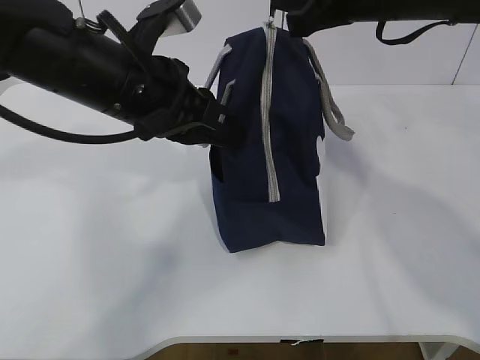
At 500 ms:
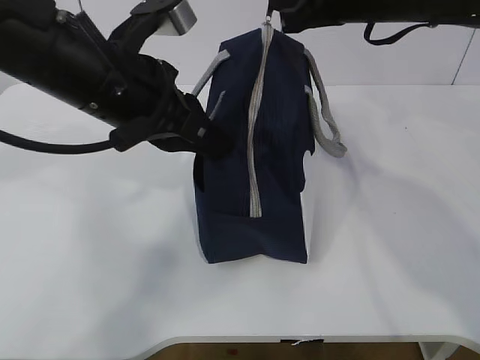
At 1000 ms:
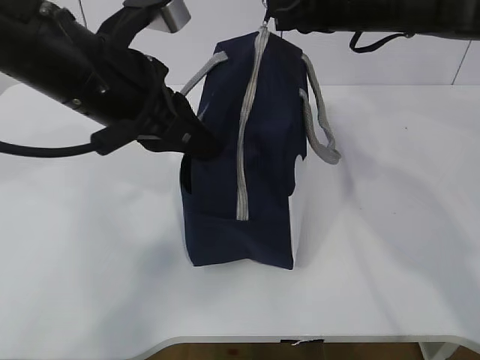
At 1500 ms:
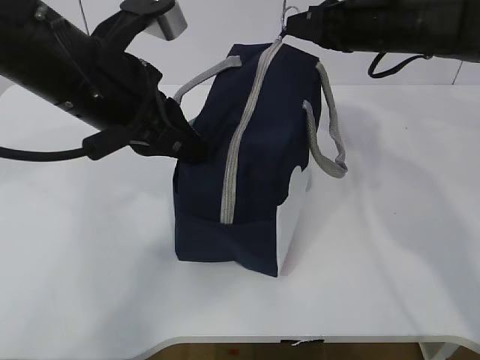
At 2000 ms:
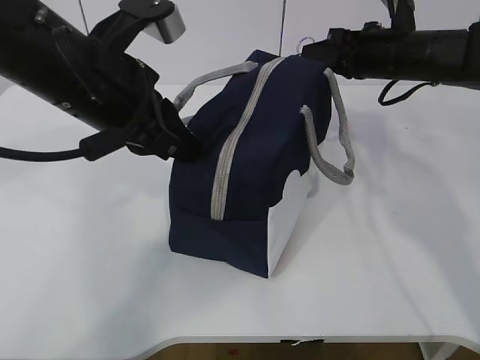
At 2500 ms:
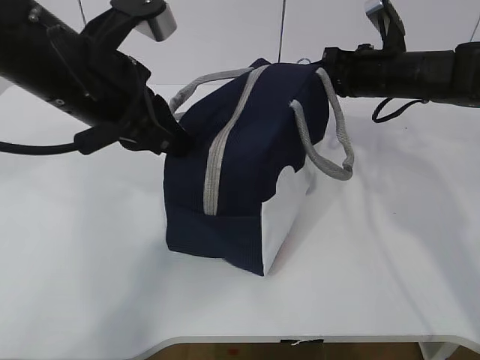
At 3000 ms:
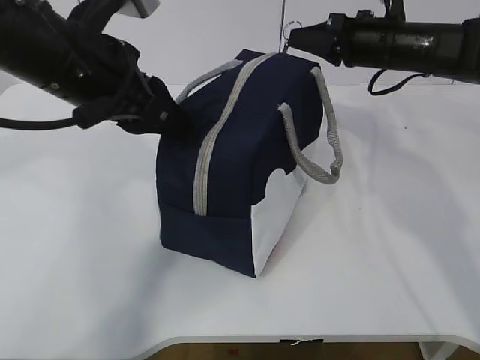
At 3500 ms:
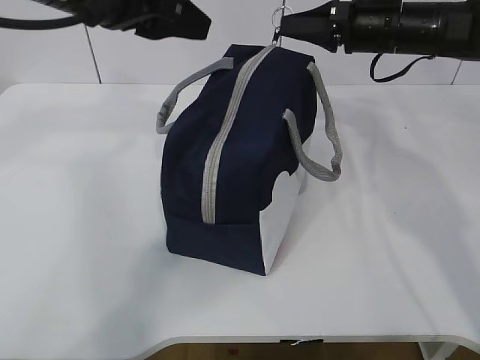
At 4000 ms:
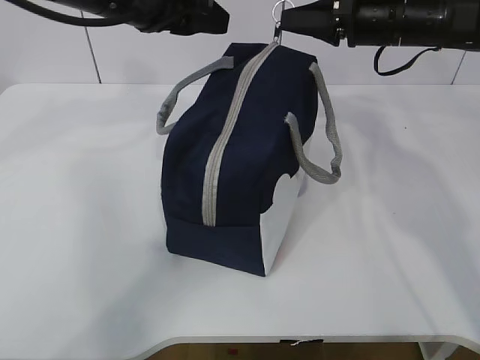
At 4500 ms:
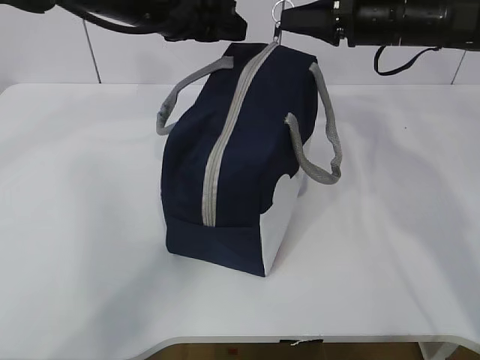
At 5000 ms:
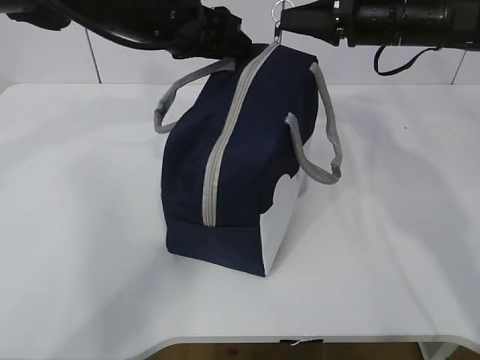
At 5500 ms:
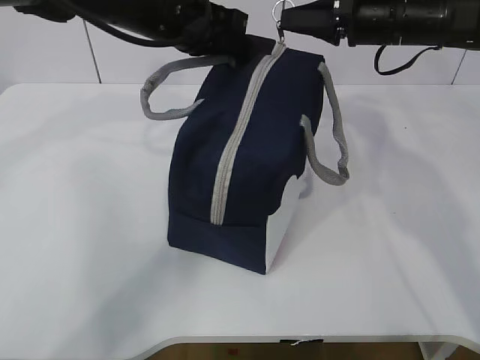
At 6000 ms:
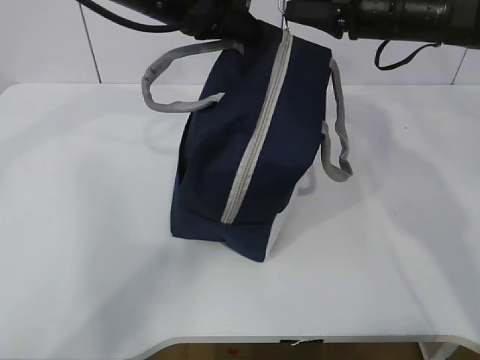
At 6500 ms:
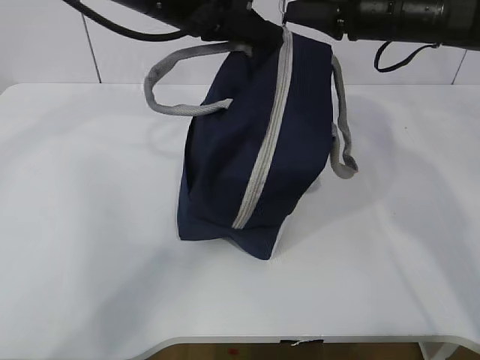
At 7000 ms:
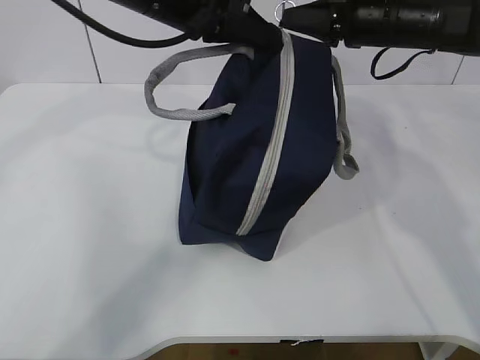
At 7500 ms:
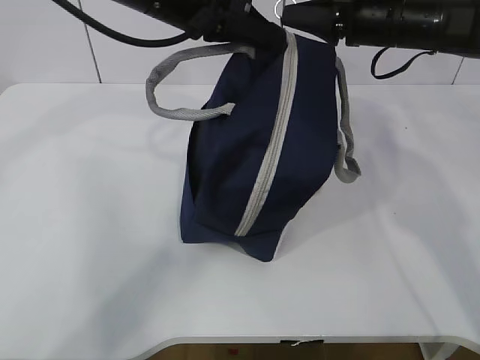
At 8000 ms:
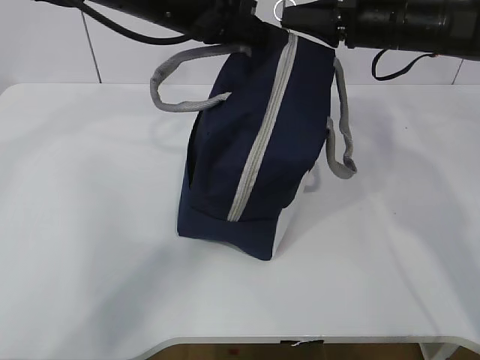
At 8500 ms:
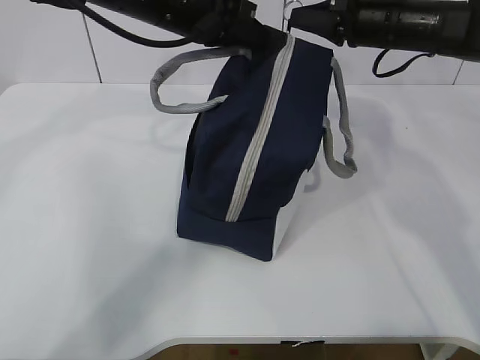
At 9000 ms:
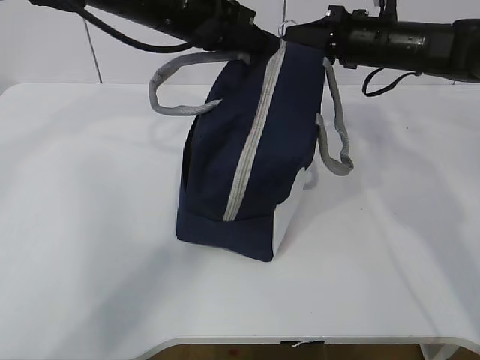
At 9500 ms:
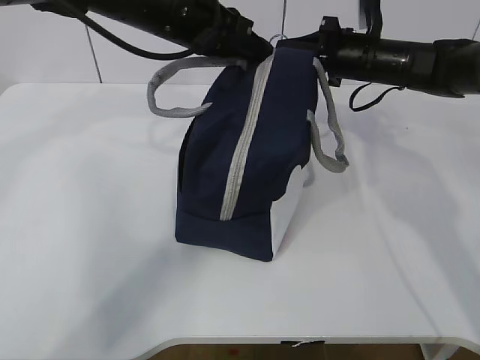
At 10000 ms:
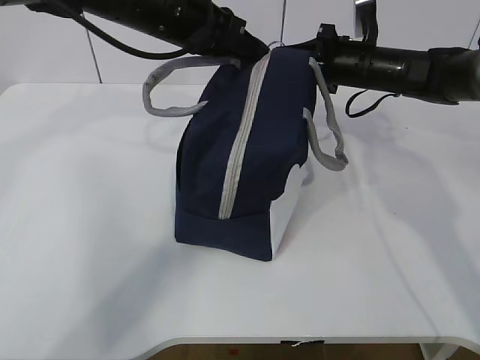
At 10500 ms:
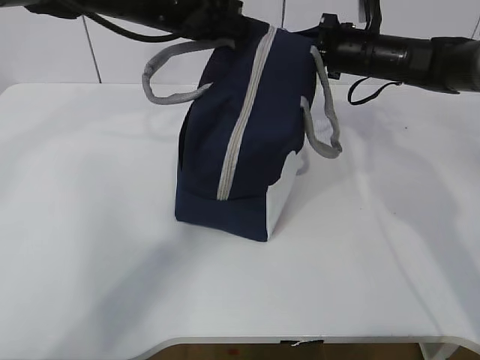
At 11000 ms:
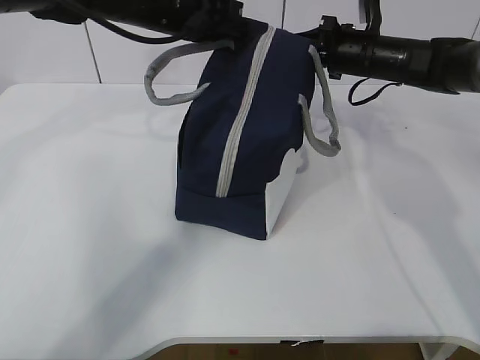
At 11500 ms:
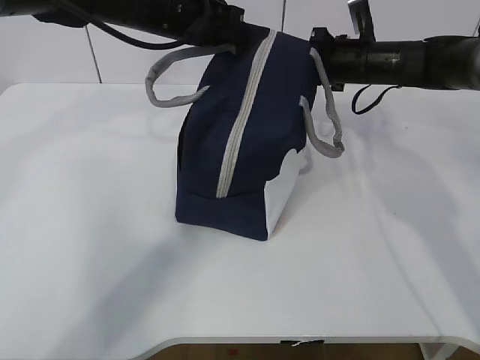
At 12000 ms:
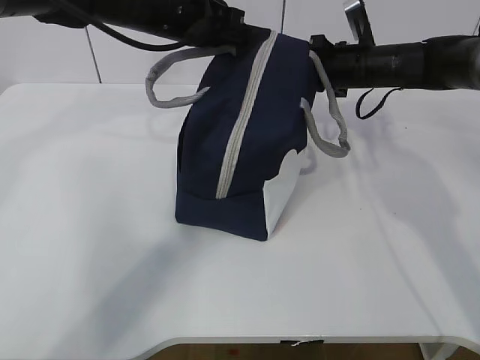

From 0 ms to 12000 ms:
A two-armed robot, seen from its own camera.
From 0 ms to 2000 ms: The right gripper is displaced downward, forward and to the right by roughly 15 cm.
From 2000 ms to 4000 ms: The left gripper travels forward by some 10 cm, and opens its fingers.
From 4000 ms to 6000 ms: The left gripper closes up.
From 6000 ms to 8000 ms: The grippers move only a little.
From 8000 ms to 10000 ms: The right gripper heads downward, covering approximately 10 cm.
From 10000 ms to 12000 ms: There are only small adjustments of the grippers.

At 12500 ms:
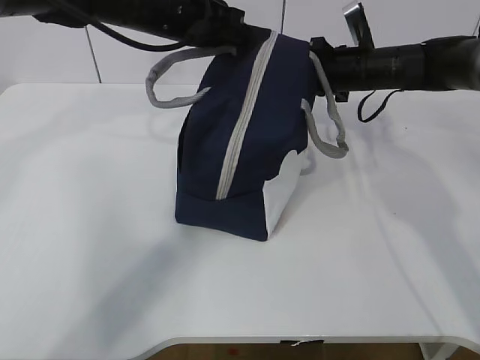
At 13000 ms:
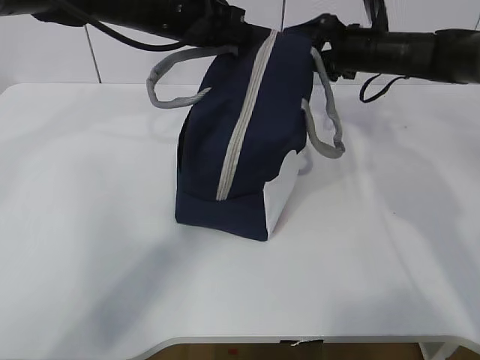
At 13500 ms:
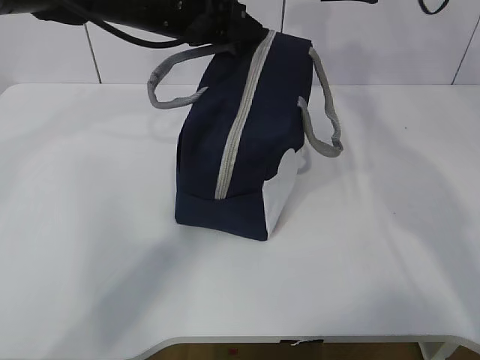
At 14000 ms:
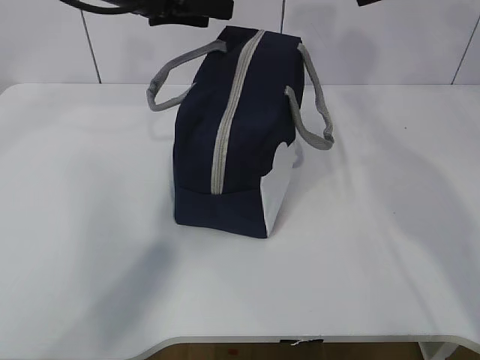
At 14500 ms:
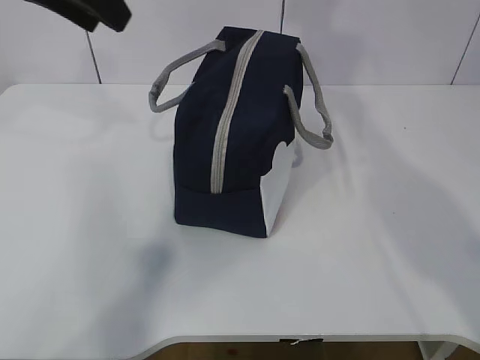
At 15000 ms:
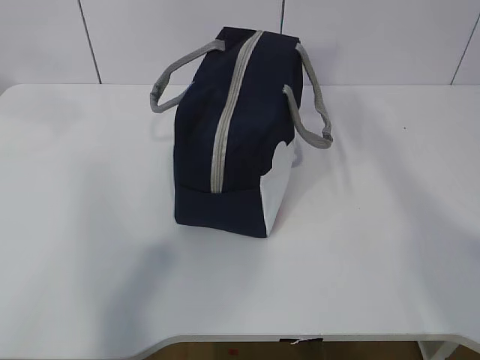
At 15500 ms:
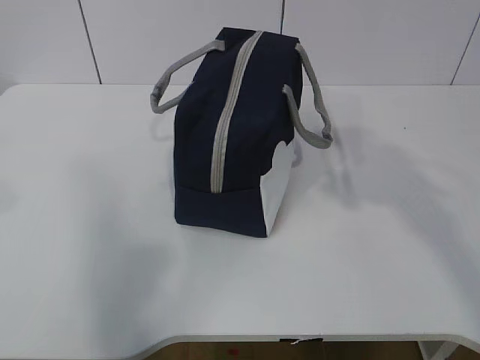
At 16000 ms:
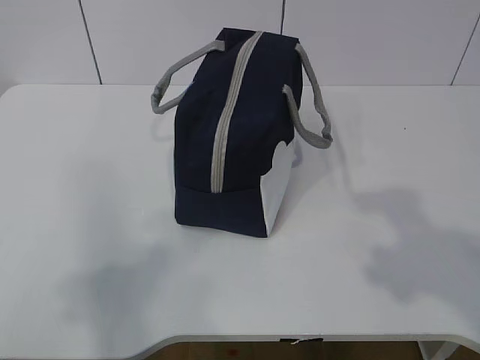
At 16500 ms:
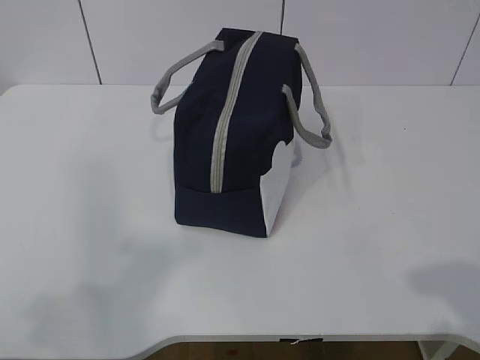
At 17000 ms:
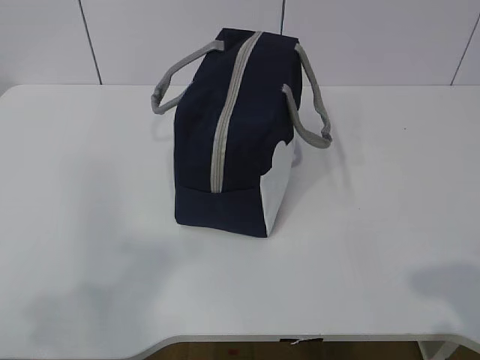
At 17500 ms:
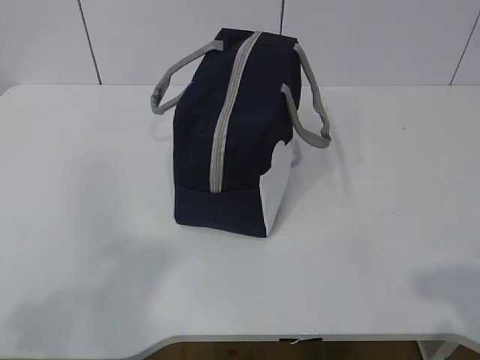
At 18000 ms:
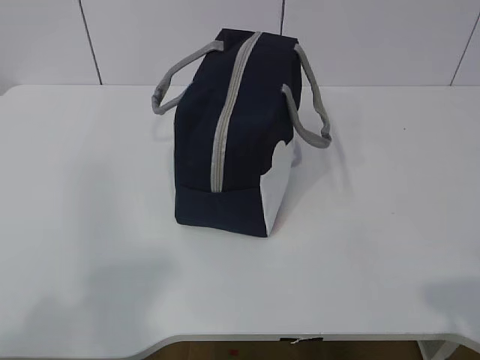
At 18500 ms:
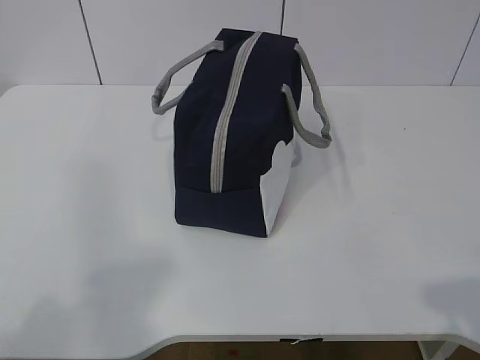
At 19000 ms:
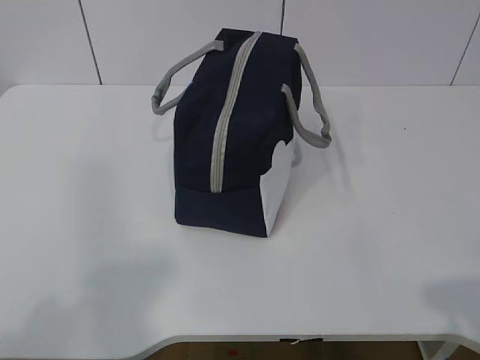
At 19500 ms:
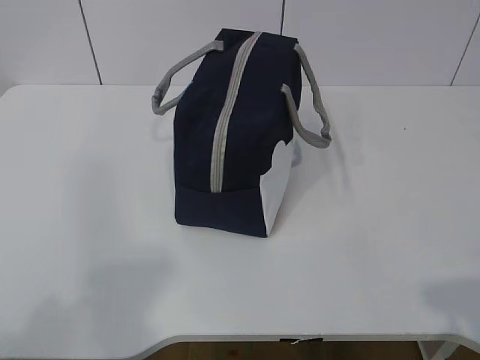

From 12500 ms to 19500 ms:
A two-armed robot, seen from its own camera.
From 12500 ms to 14500 ms: The right gripper is displaced upward and backward by roughly 30 cm, and opens its fingers. The left gripper moves upward, backward and to the left, approximately 20 cm, and opens up.
From 14500 ms to 16000 ms: The right gripper heads backward and downward, covering about 30 cm, while the left gripper moves backward, roughly 30 cm.
From 16000 ms to 17500 ms: The right gripper goes about 10 cm downward and backward.

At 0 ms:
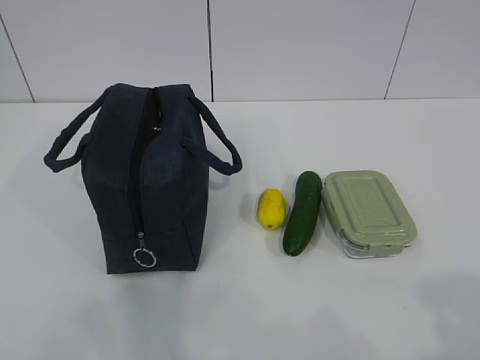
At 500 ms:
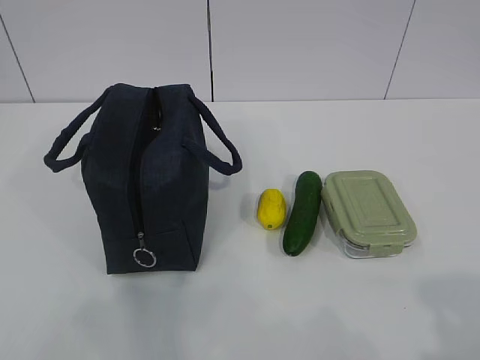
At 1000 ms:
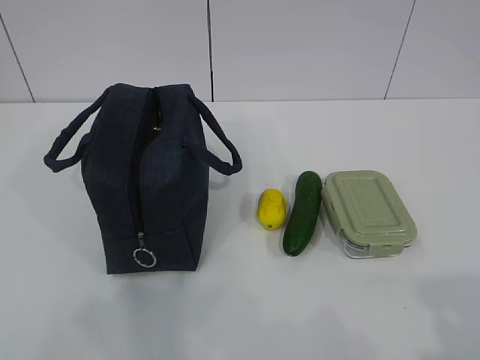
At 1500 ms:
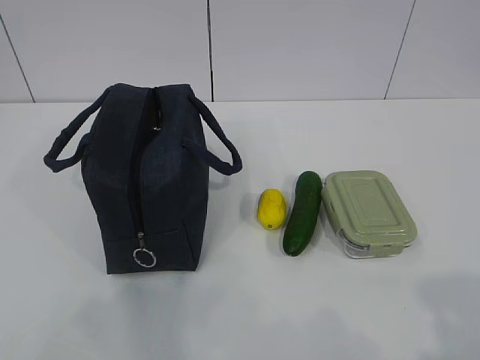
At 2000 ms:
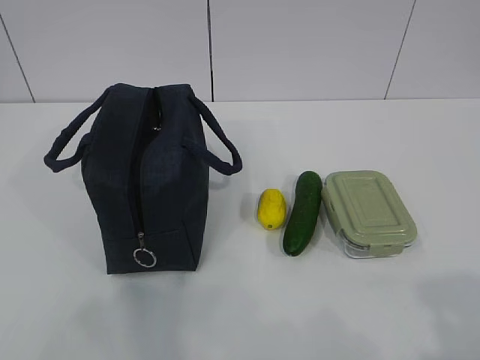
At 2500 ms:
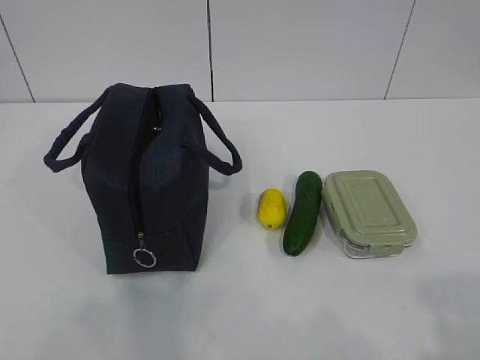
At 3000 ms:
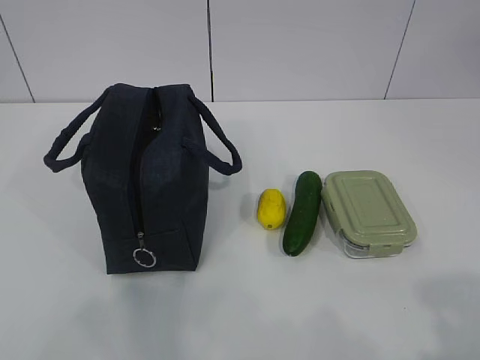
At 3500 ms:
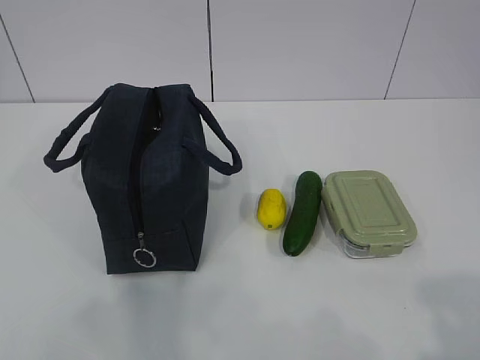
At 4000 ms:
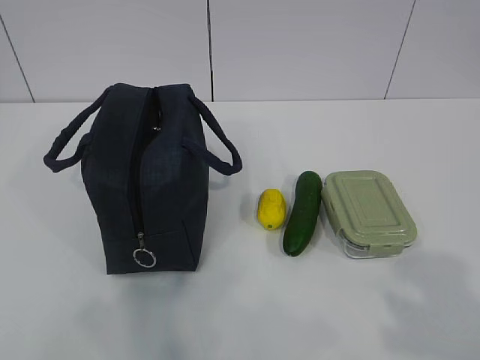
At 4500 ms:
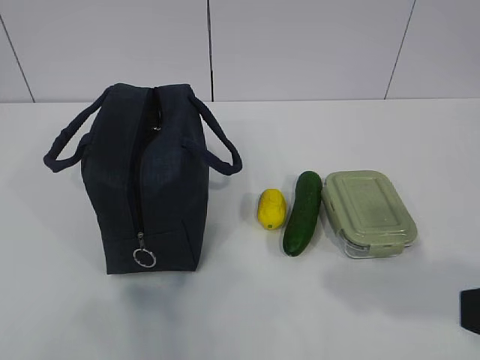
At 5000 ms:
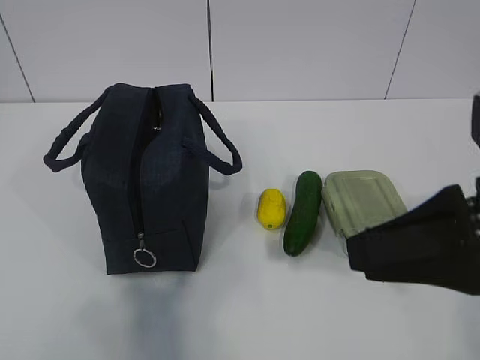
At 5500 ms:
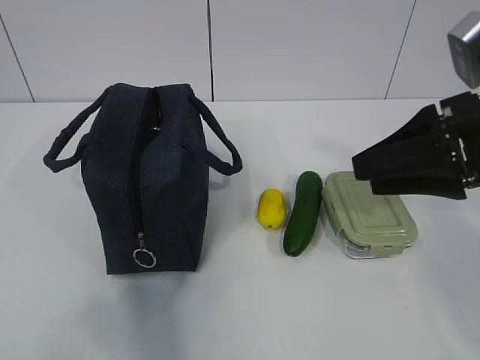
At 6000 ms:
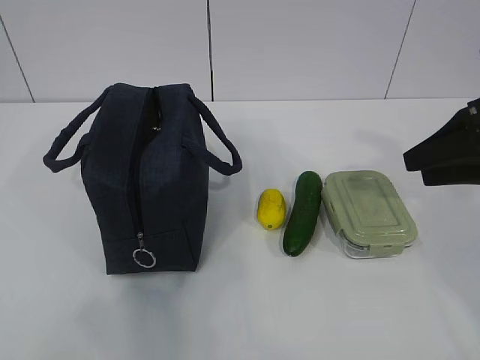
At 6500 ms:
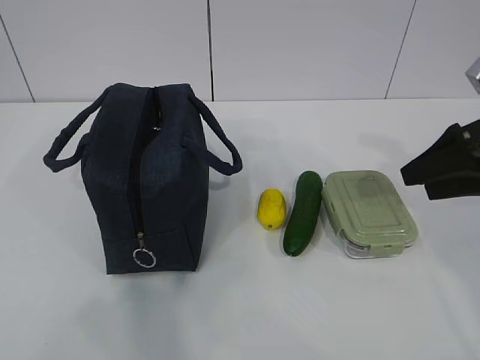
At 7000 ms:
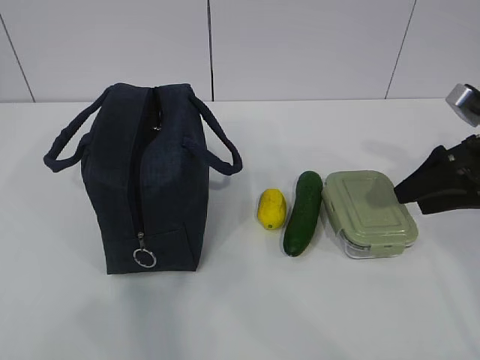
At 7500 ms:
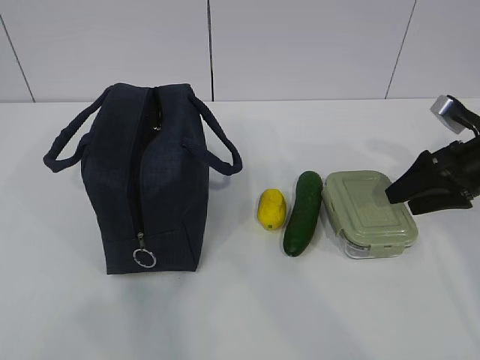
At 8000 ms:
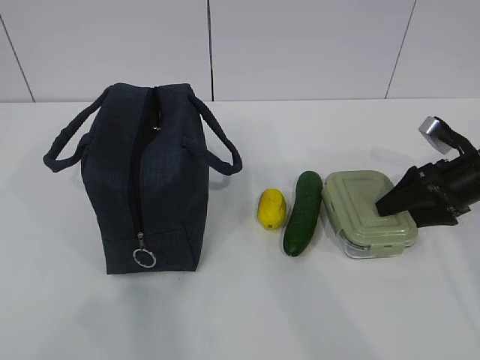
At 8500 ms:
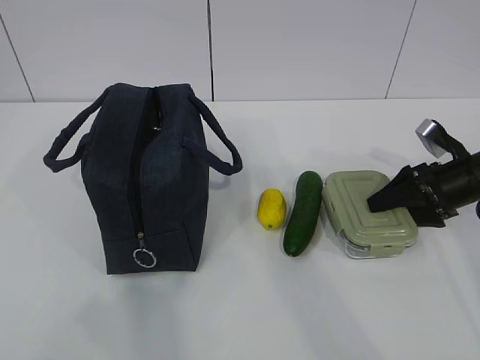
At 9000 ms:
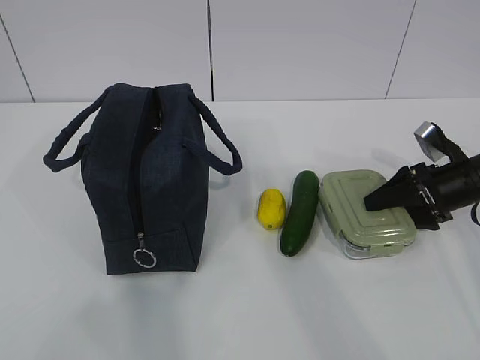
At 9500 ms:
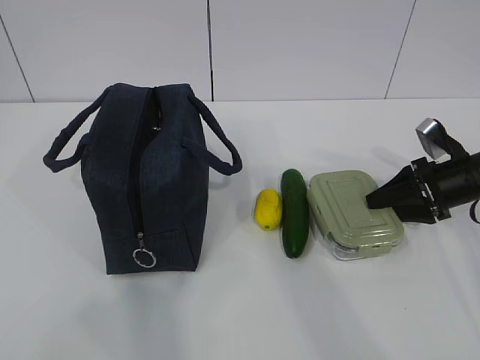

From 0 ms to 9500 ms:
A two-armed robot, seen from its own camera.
From 4000 ms to 5500 ms: The right gripper travels forward by about 25 cm.
From 5500 ms to 7500 ms: The right gripper is displaced forward, downward and to the right by some 20 cm, and opens its fingers.
From 7500 ms to 9500 ms: The right gripper moves downward, approximately 5 cm, and closes up.
